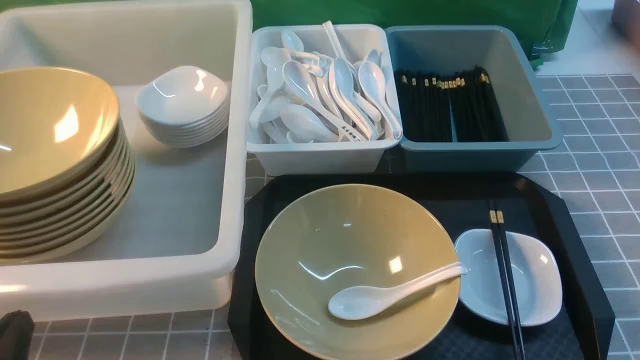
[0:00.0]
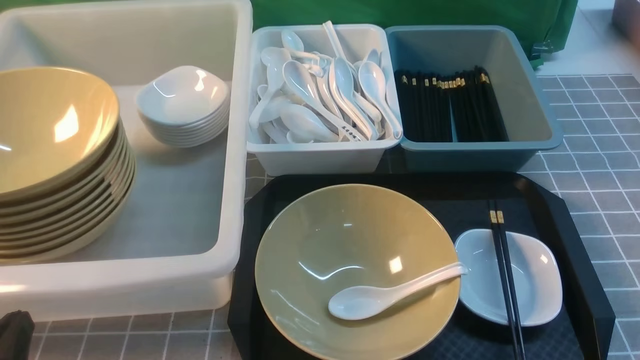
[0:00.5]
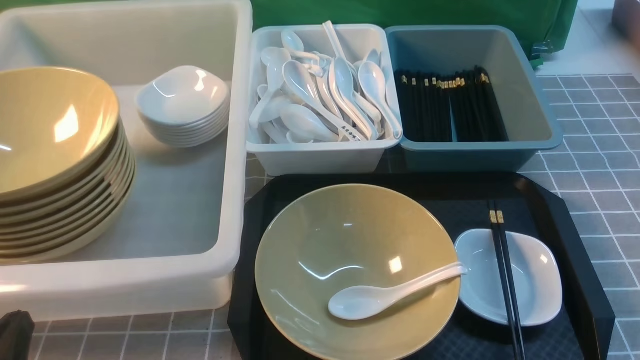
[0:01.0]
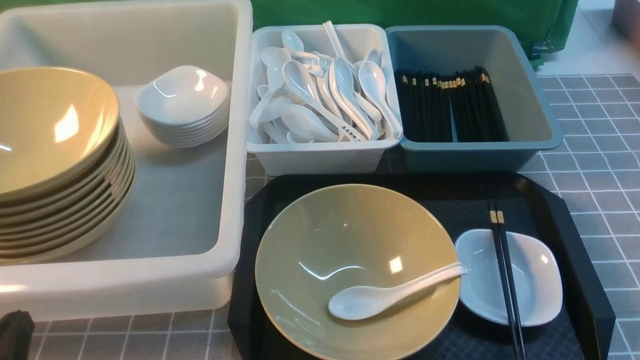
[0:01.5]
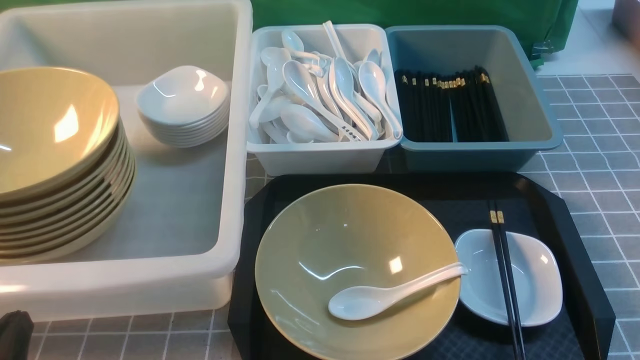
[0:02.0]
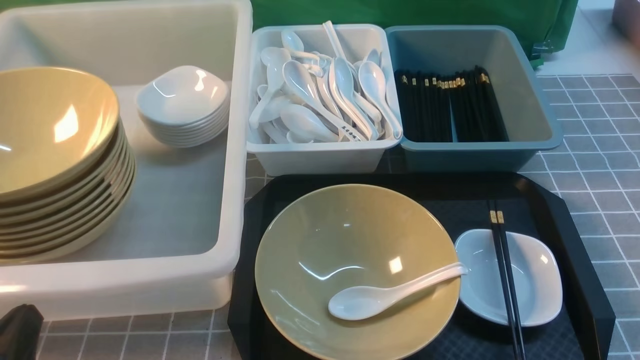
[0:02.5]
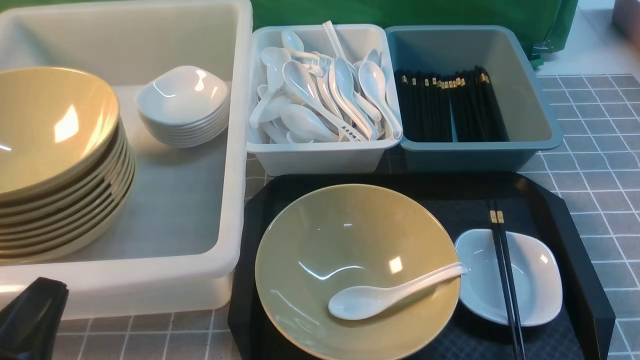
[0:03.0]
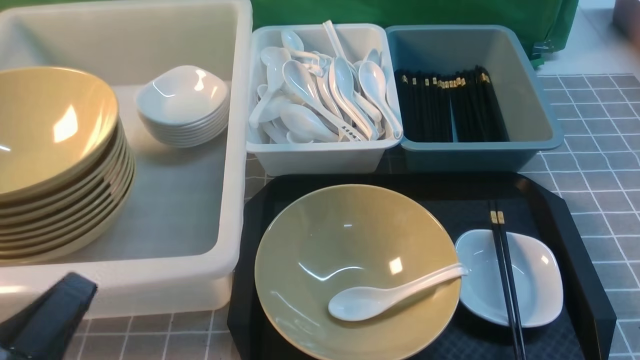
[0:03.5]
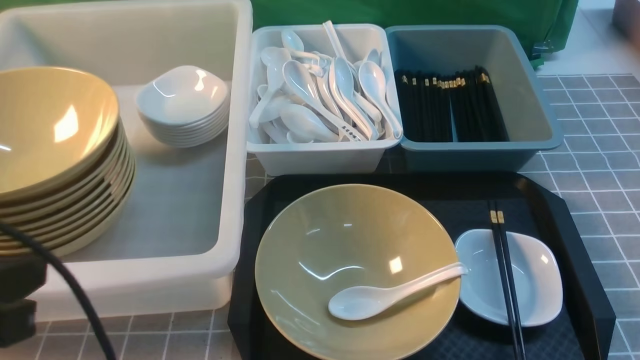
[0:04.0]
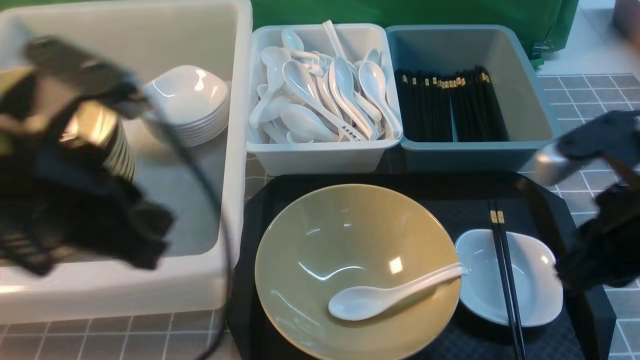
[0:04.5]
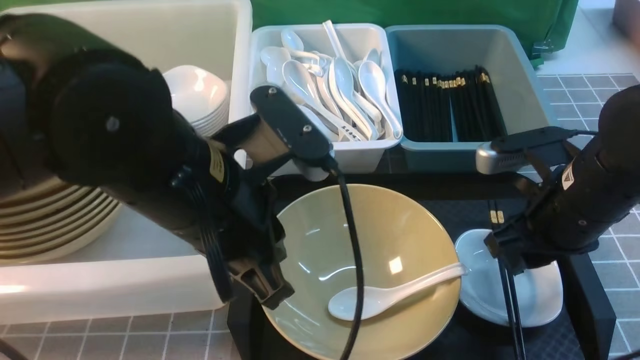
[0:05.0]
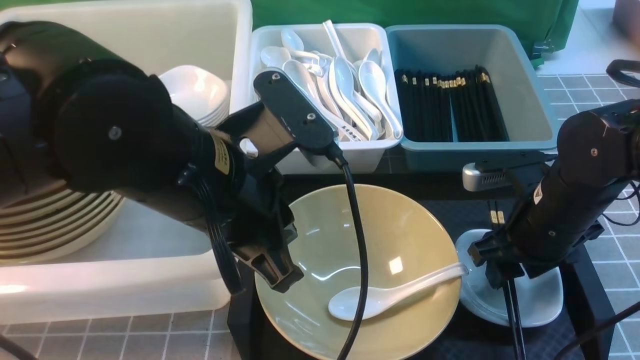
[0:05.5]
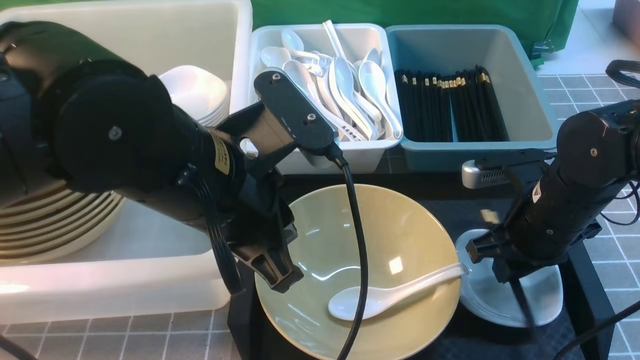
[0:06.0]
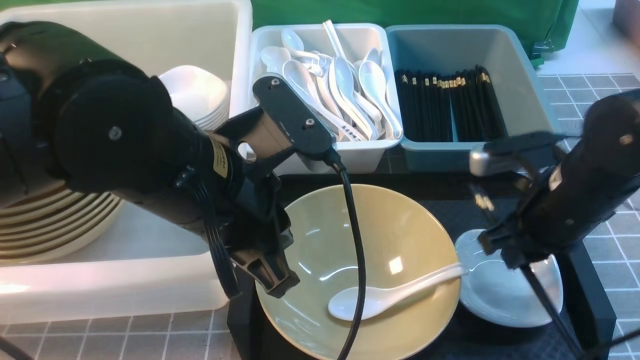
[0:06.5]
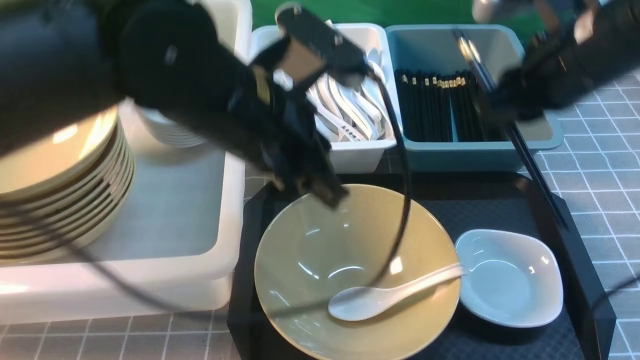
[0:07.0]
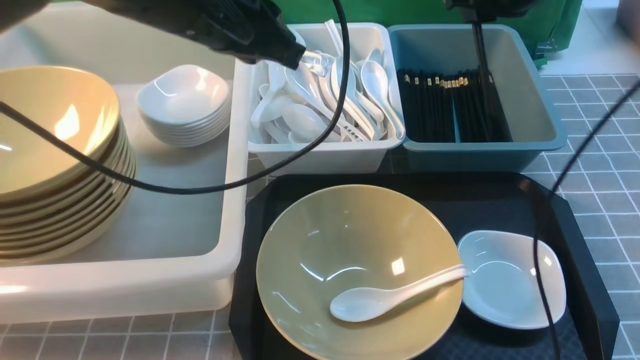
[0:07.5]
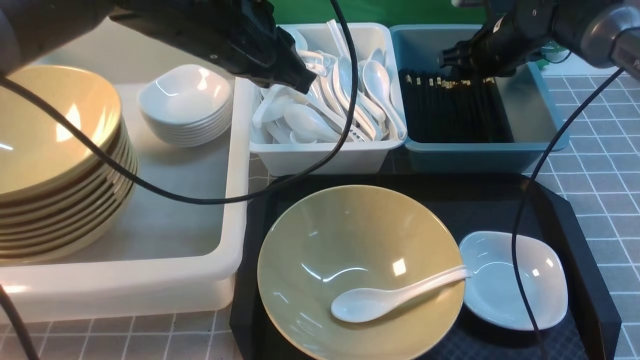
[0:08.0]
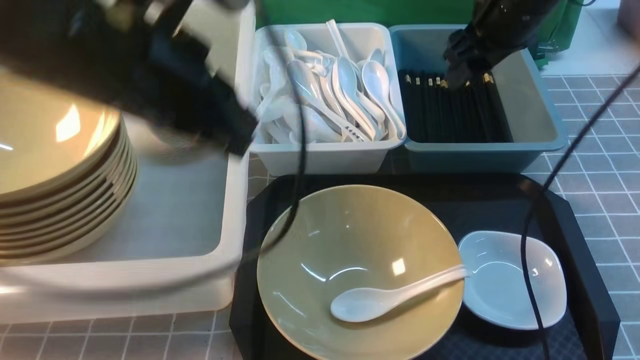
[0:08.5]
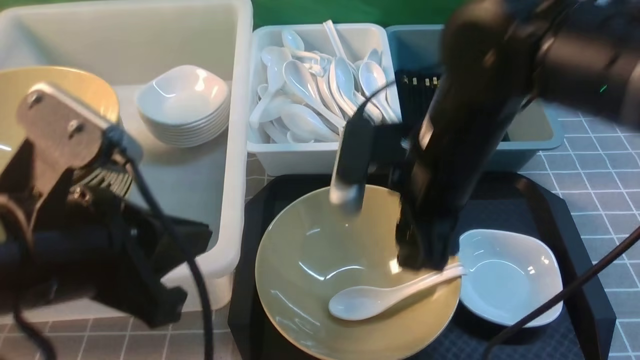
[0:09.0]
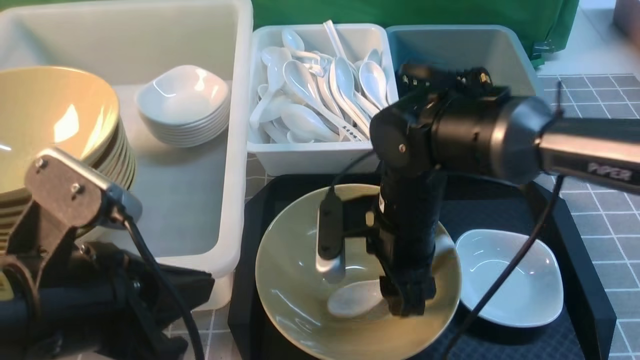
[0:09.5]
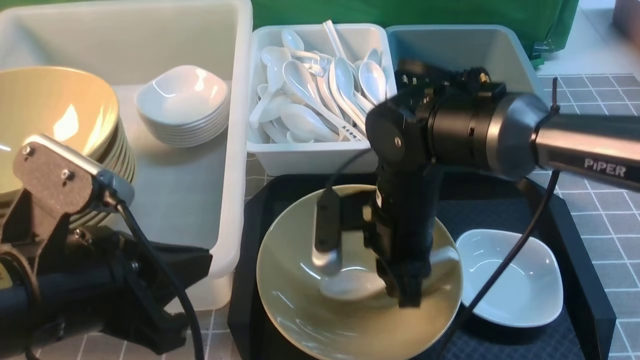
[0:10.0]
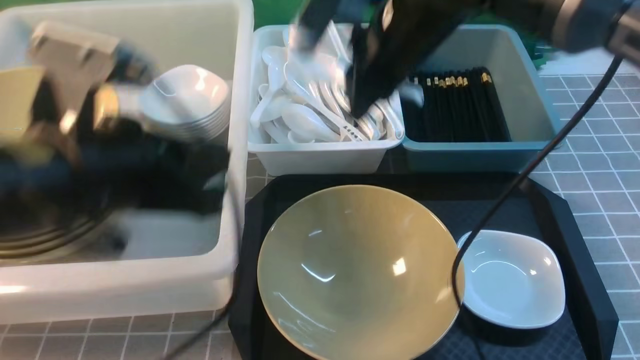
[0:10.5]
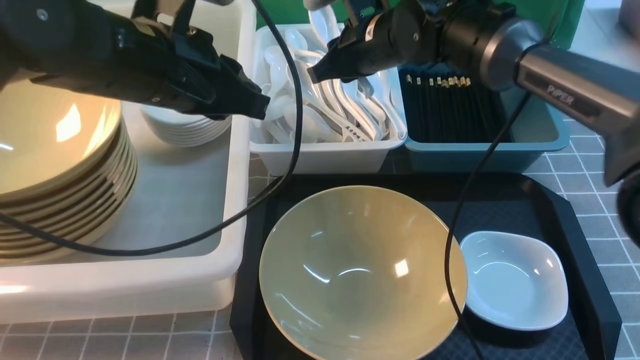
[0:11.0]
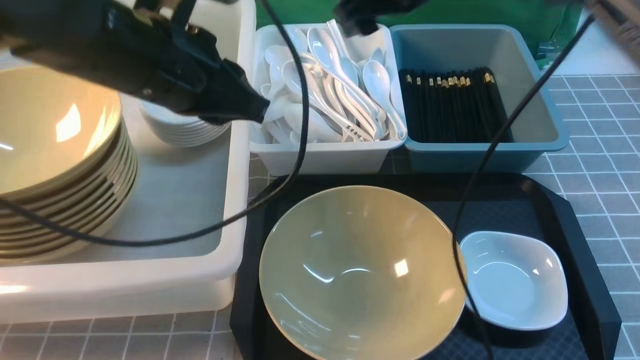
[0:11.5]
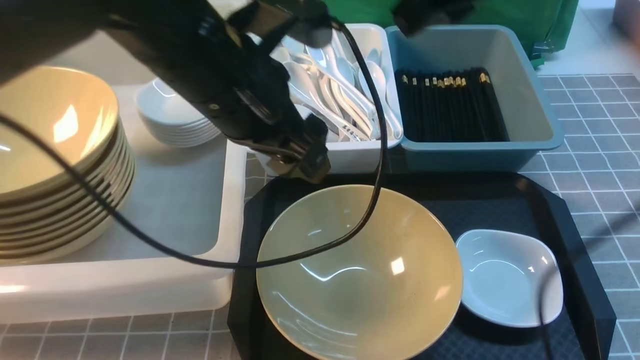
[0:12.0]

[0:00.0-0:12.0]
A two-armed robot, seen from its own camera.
Task of the whole recording: on grey table put chopsticks spoon bowls plates into blue grey white boxes.
Step, 0:00.0 to 0:06.0: use the right arm to grab the chopsticks.
Step, 0:06.5 to 0:08.0: use the right arm to put the chopsticks into the small storage box on the right.
Step, 0:08.5 to 0:10.0: use the right arm to grab the soup spoon in the middle.
Step, 0:10.5 to 0:11.0: use the right arm to put the soup spoon into the small storage box in the middle.
0:00.0 to 0:02.0: Both grippers stay about where they are.
0:02.0 to 0:04.0: The left gripper shifts roughly 15 cm upward.
0:04.0 to 0:06.0: The right gripper goes some 25 cm forward, downward and to the left, and opens its fingers, while the left gripper is displaced to the right and forward by roughly 20 cm.
0:06.0 to 0:08.0: The right gripper shifts approximately 25 cm forward, and opens. The left gripper goes approximately 15 cm forward.
0:08.0 to 0:10.0: The right gripper shifts some 25 cm backward and to the left, and closes its fingers, while the left gripper goes approximately 20 cm backward.
0:10.0 to 0:12.0: The left gripper moves forward and to the right, about 20 cm, and opens; the right gripper heads upward, covering about 20 cm, and opens, then closes again.

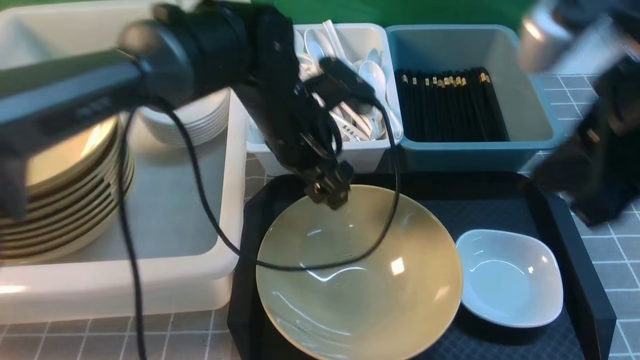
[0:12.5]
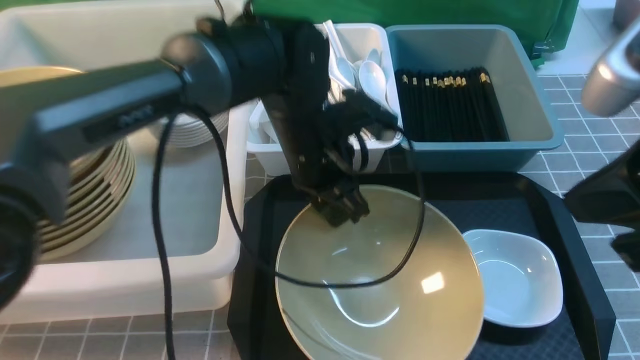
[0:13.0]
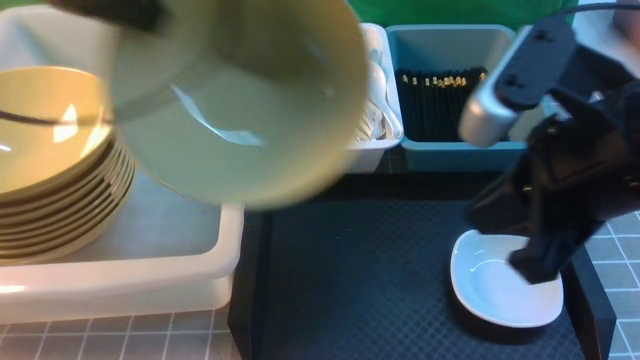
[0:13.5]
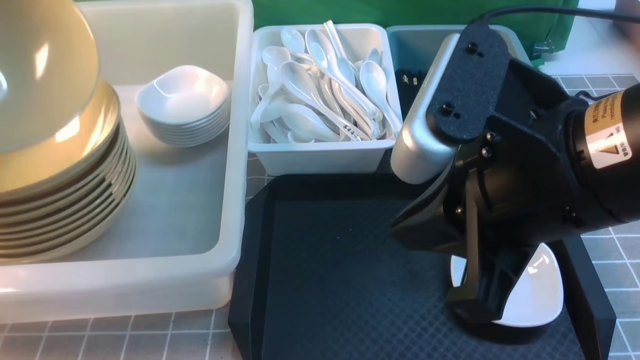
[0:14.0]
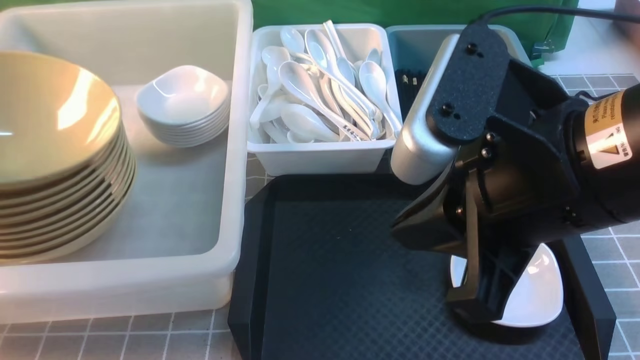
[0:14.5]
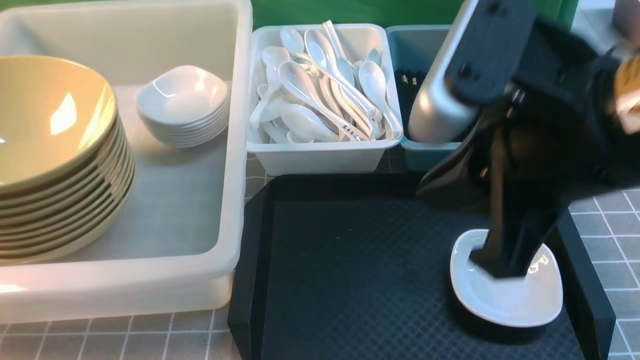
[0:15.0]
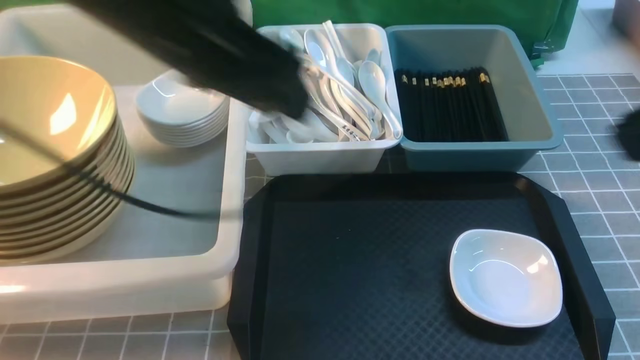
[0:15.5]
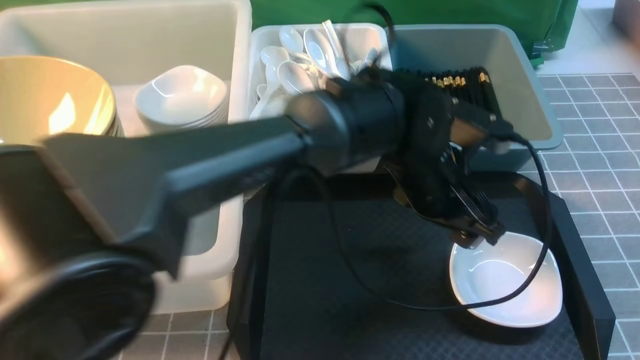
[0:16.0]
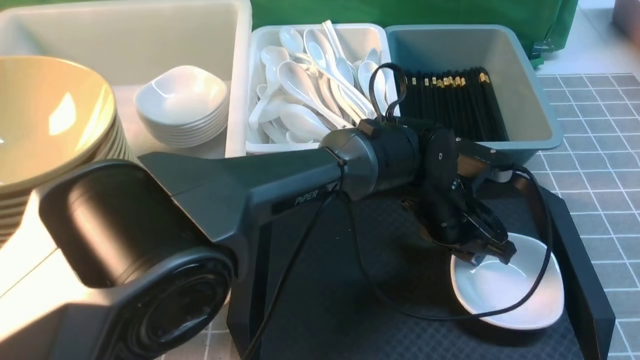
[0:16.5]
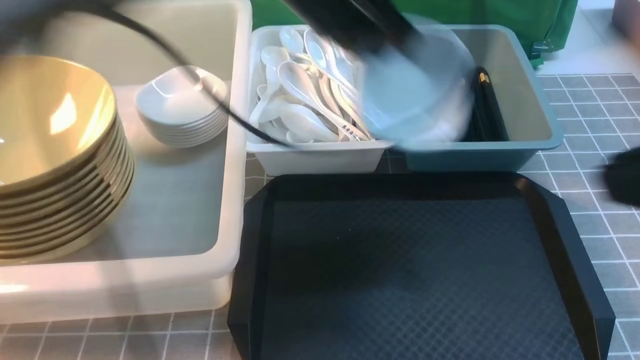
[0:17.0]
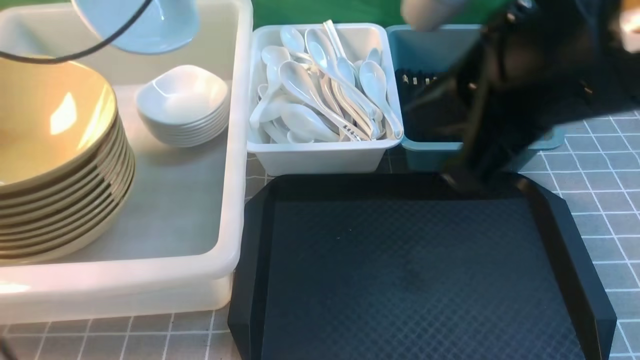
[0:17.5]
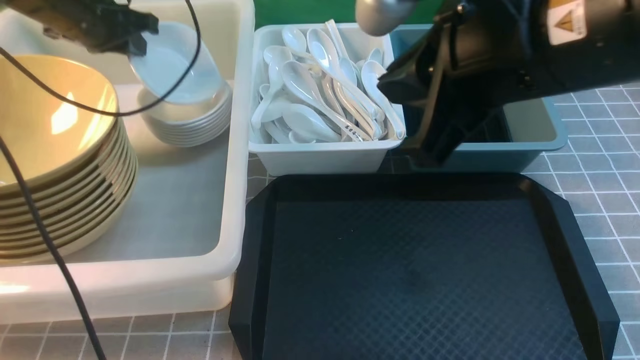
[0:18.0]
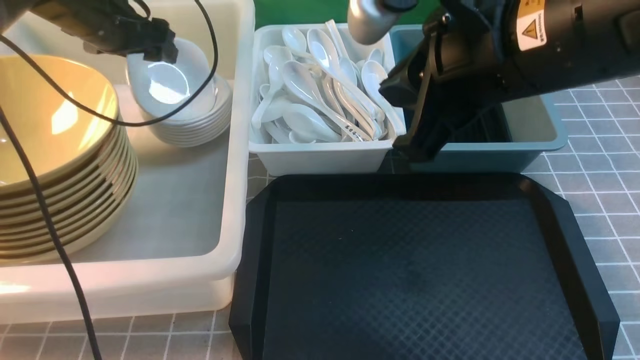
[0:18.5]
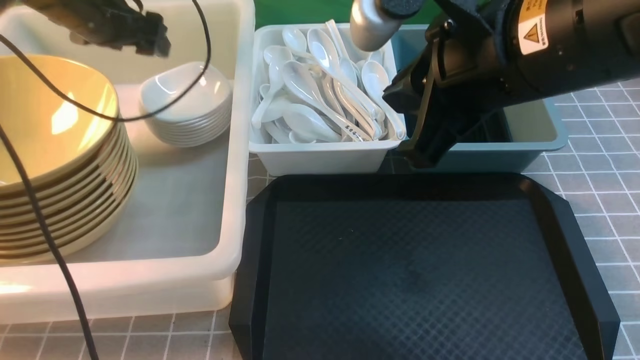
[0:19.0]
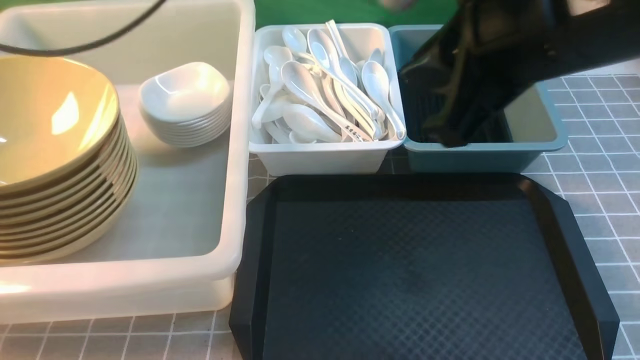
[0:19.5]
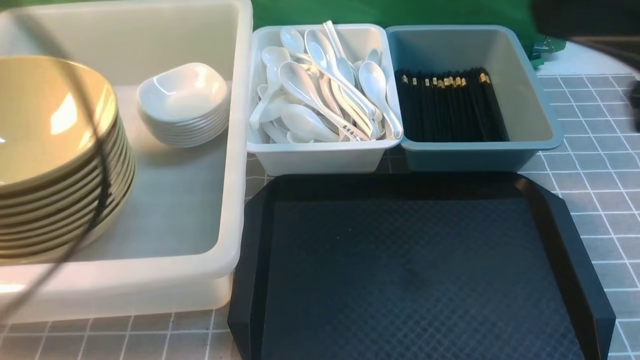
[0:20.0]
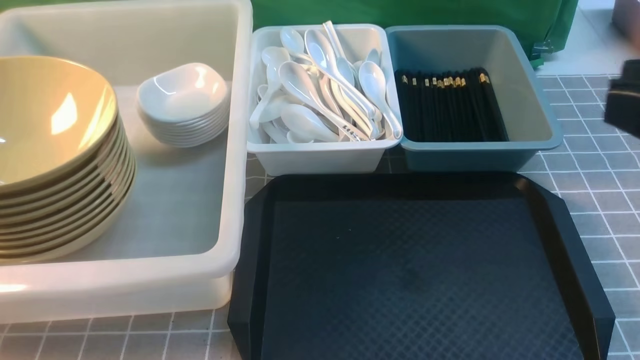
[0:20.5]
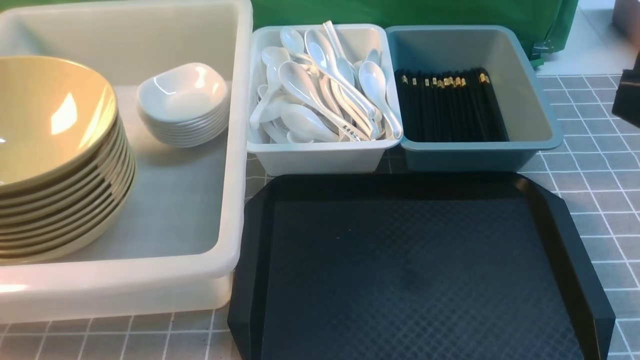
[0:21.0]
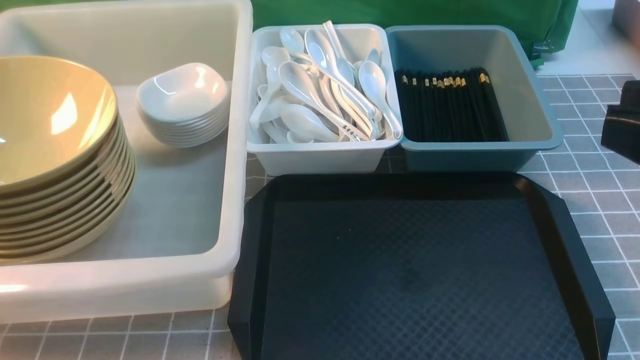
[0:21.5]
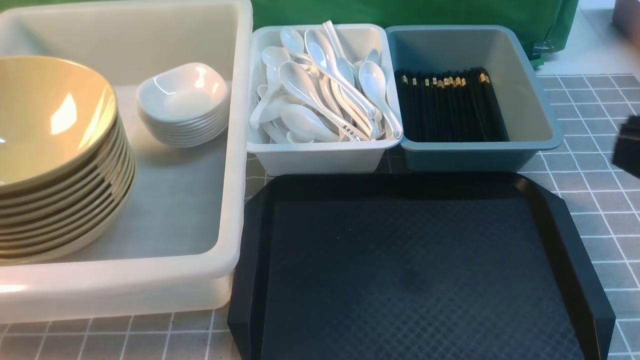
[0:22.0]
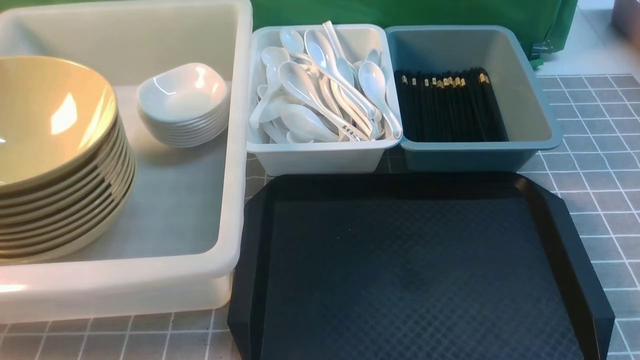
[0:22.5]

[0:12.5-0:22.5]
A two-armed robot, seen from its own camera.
Task of the whole recording: on grey table put chopsticks spoon bowls plates into blue grey white boxes.
Step, 0:13.5 to 0:14.5: use the left arm to put the noodle bowl into the large storage box on the left.
Step, 0:15.0 to 0:16.5: use the left arm to grab the plate.
Step, 0:17.0 to 0:18.5: use the left arm to put the plate into the large storage box on the left.
0:12.5 to 0:14.5: The left gripper travels to the left by about 35 cm, and closes its fingers; the right gripper moves to the left, roughly 5 cm.
0:14.5 to 0:16.5: The right gripper travels to the right and backward by roughly 15 cm. The left gripper goes about 50 cm to the right, and opens, then closes again.
0:16.5 to 0:18.5: The left gripper shifts some 40 cm to the left and forward, and opens up, while the right gripper shifts about 20 cm forward and to the left.
0:18.5 to 0:20.5: The left gripper moves backward, some 50 cm, and closes up. Meanwhile the right gripper moves backward and to the right, about 20 cm.
0:20.5 to 0:22.5: The right gripper moves downward and to the right, about 20 cm.
